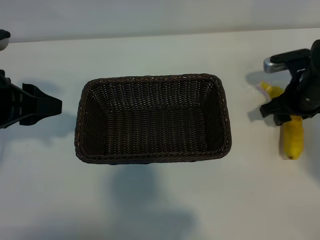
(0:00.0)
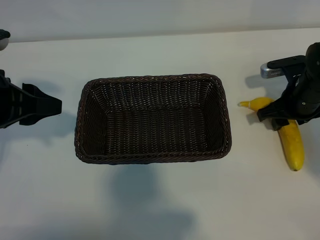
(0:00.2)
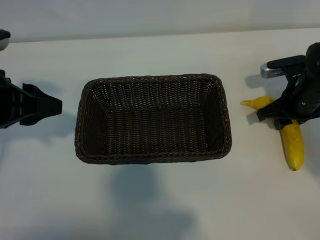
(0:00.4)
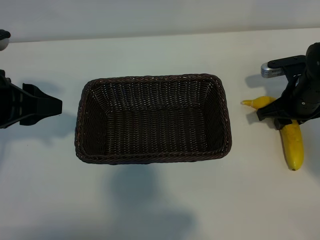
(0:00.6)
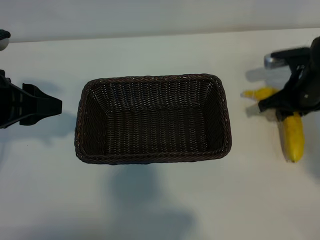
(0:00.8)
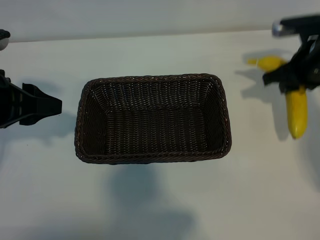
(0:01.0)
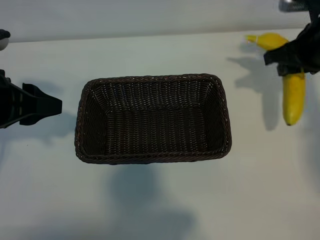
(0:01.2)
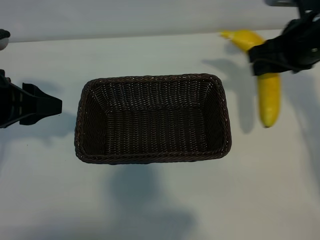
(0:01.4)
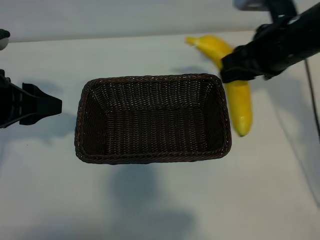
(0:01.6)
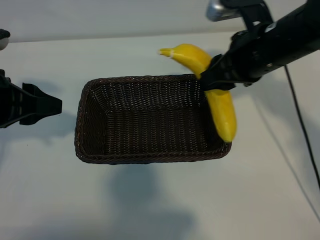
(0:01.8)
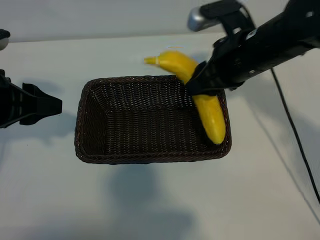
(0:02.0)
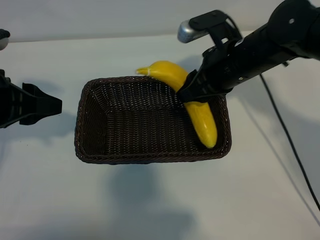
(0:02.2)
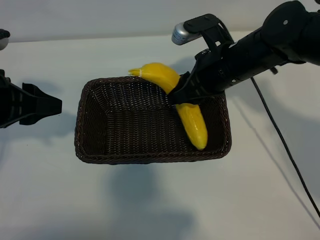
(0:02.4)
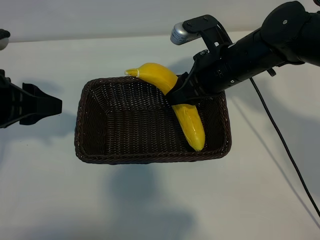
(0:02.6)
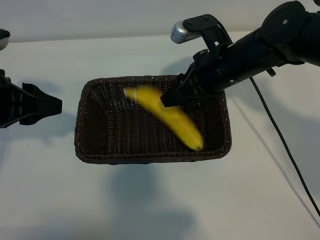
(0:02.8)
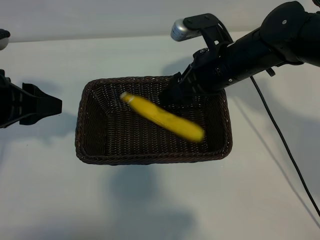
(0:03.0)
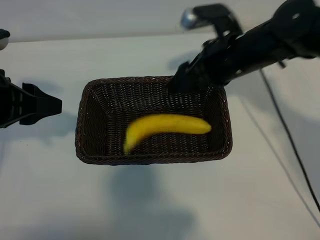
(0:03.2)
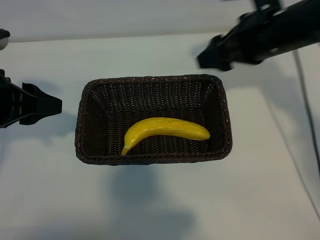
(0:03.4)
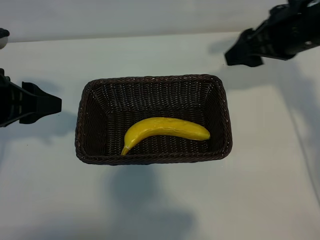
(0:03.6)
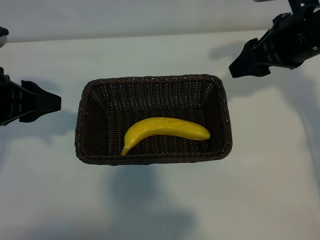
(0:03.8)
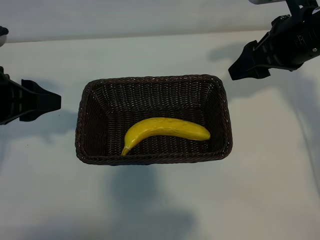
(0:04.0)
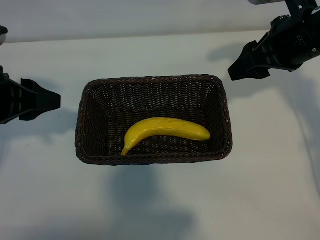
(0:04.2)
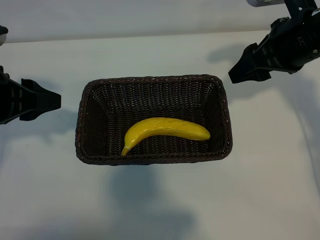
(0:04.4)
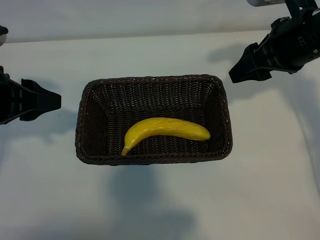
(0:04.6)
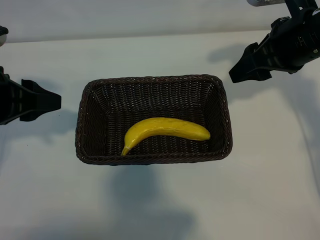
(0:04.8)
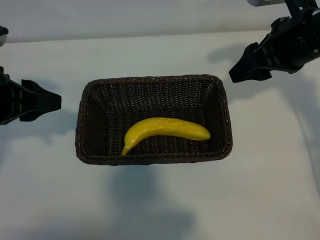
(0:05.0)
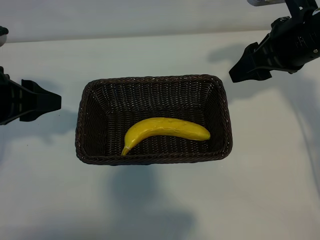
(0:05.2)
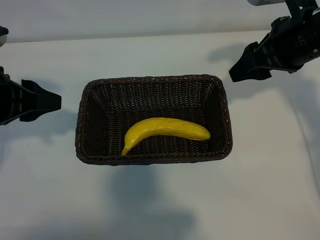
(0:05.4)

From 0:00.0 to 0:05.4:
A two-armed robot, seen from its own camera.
Task of the whole recording: pick up the banana and put it into the basket.
Step, from 0:00.8 to 0:03.2: Place the banana in the basket with right gripper.
